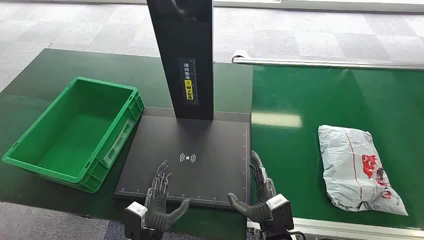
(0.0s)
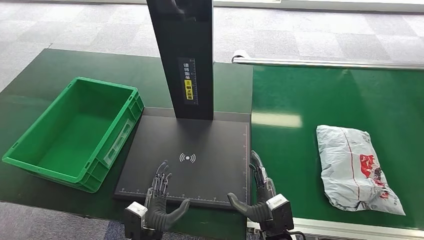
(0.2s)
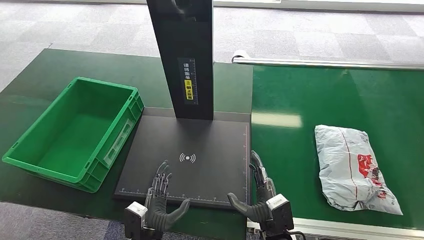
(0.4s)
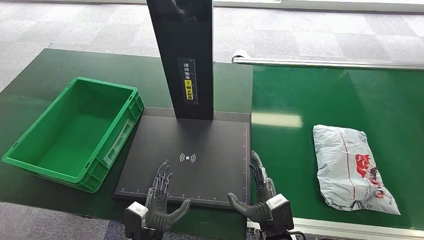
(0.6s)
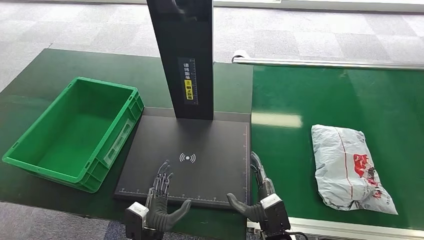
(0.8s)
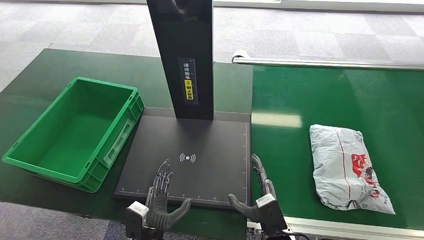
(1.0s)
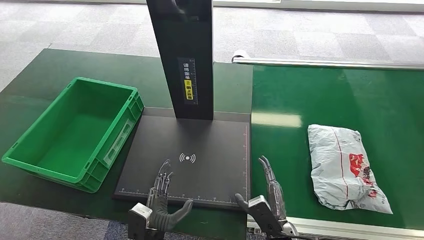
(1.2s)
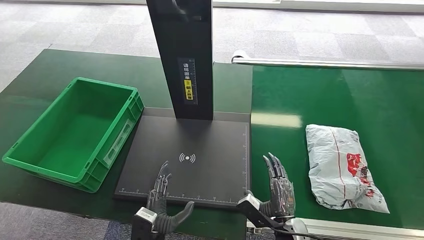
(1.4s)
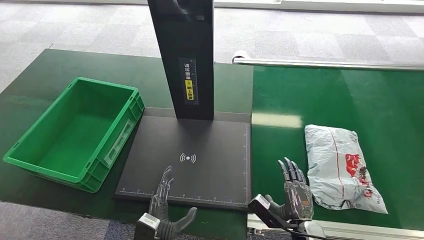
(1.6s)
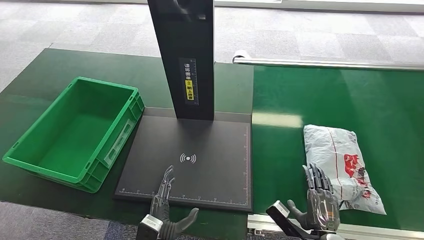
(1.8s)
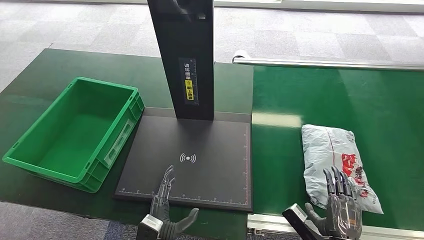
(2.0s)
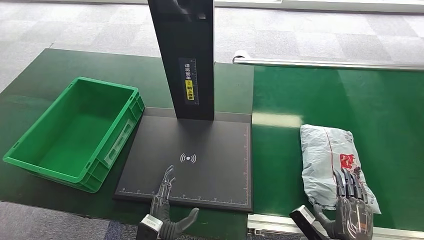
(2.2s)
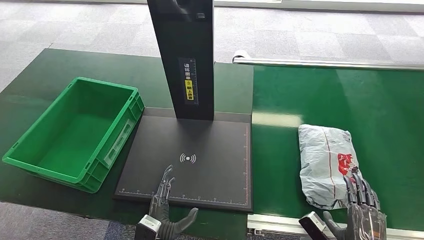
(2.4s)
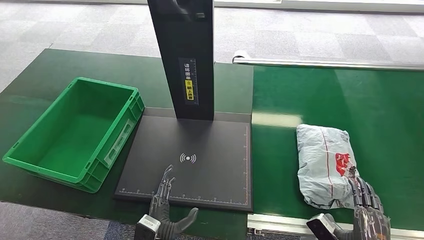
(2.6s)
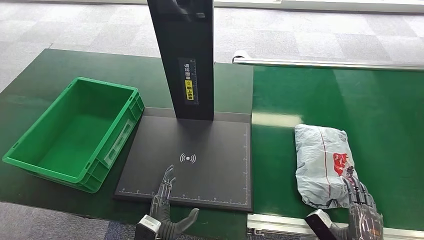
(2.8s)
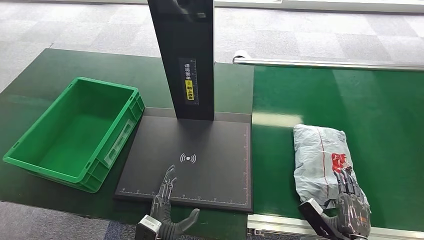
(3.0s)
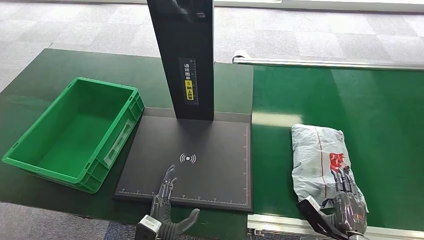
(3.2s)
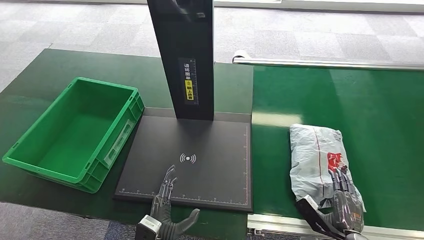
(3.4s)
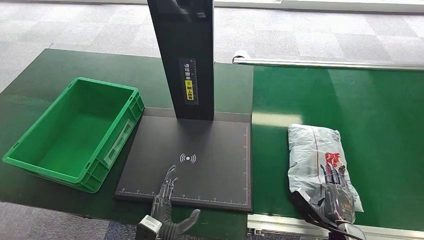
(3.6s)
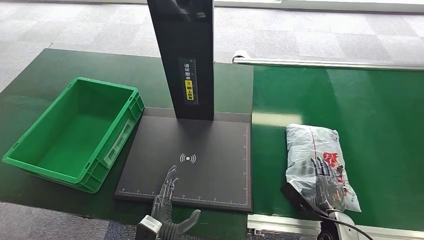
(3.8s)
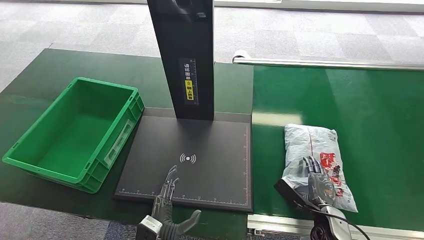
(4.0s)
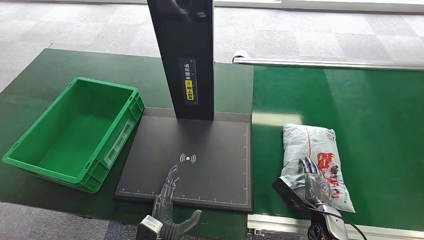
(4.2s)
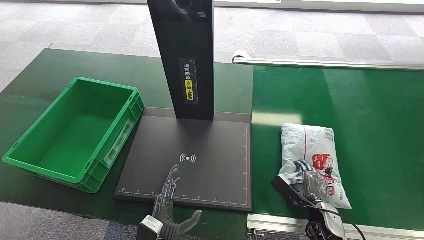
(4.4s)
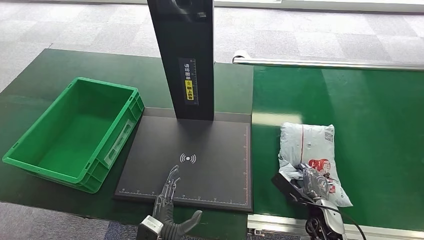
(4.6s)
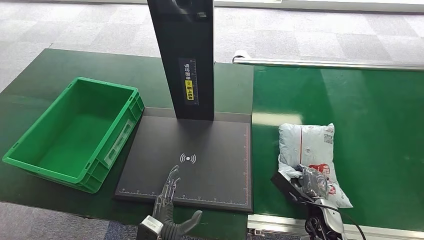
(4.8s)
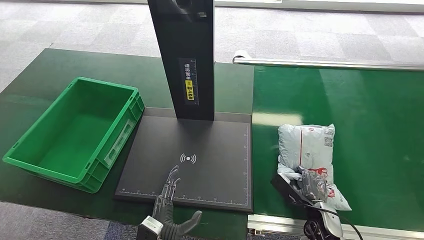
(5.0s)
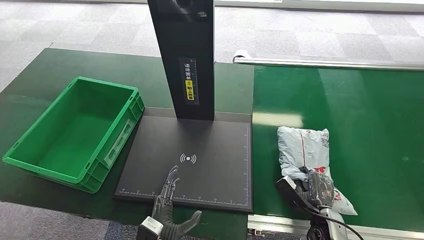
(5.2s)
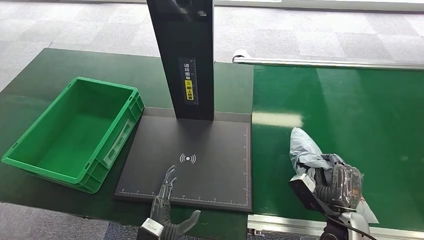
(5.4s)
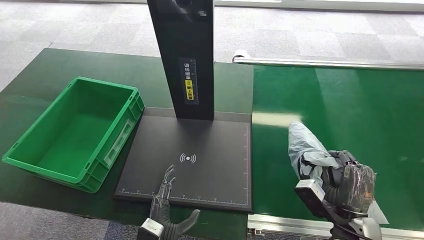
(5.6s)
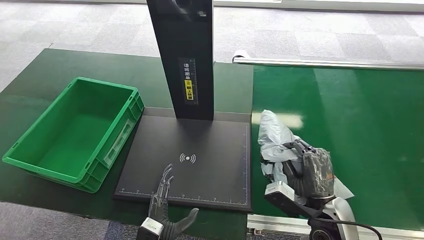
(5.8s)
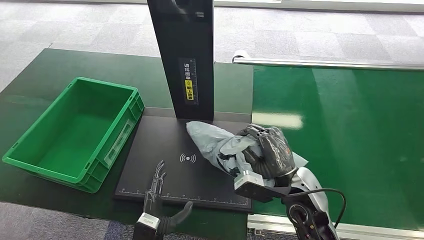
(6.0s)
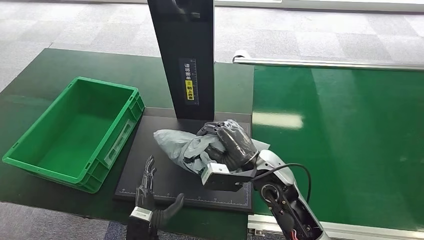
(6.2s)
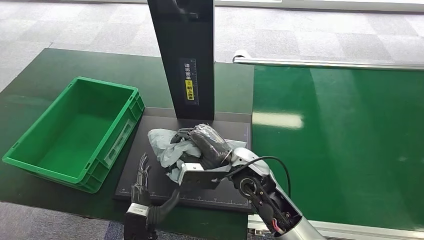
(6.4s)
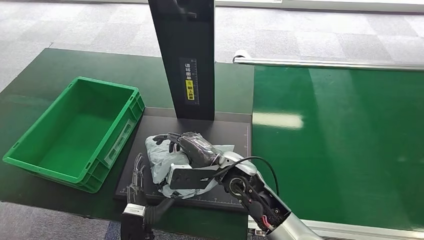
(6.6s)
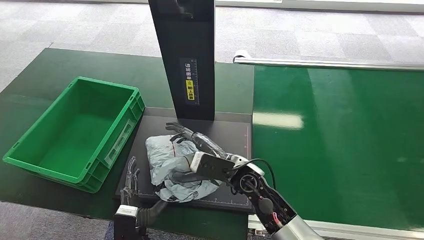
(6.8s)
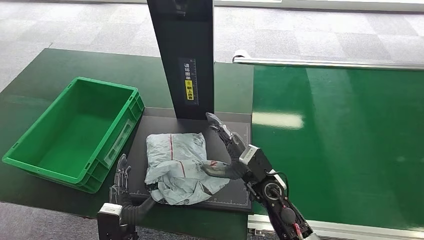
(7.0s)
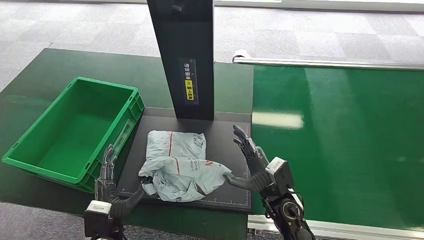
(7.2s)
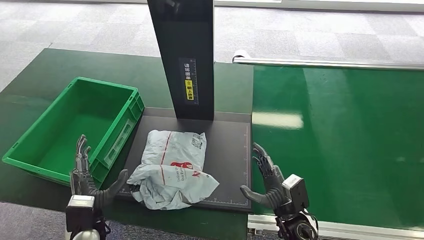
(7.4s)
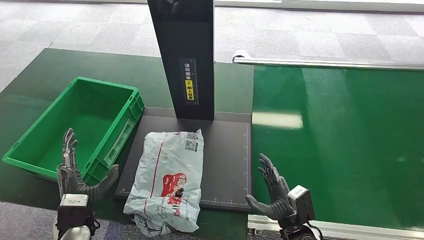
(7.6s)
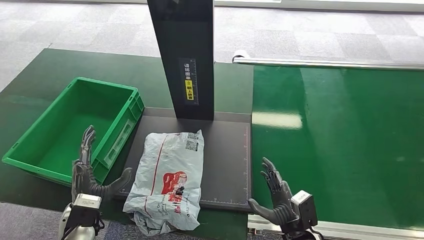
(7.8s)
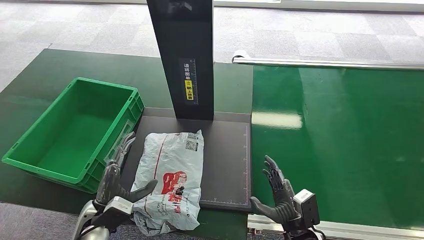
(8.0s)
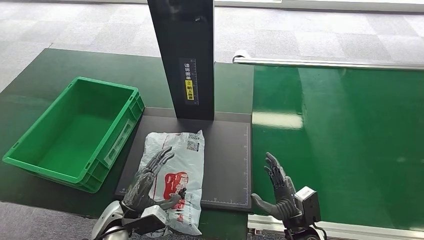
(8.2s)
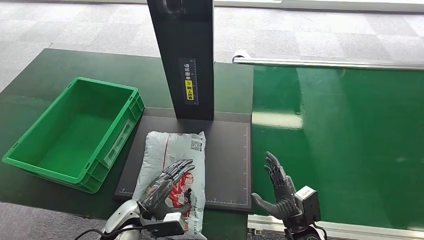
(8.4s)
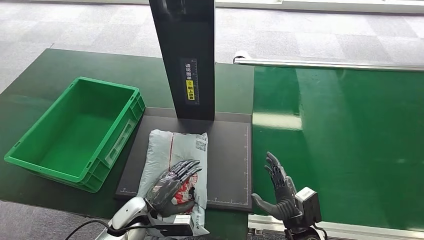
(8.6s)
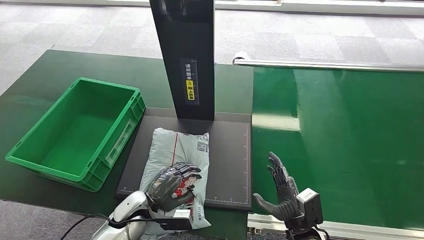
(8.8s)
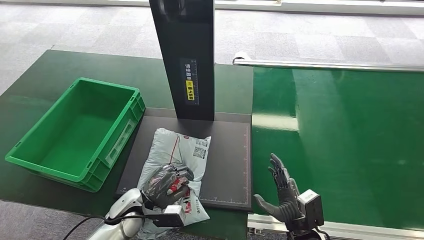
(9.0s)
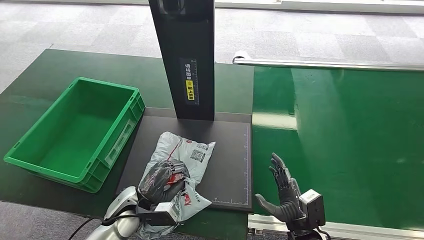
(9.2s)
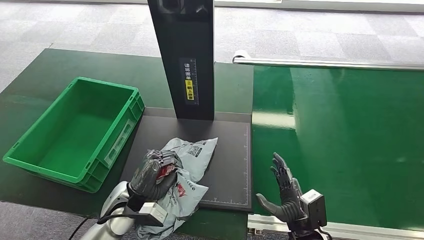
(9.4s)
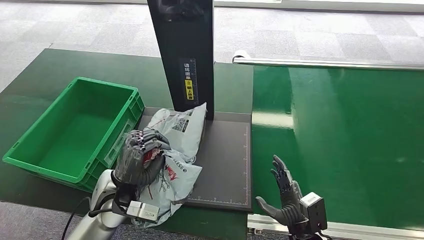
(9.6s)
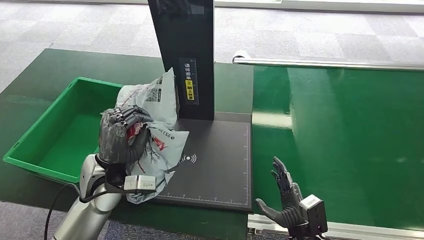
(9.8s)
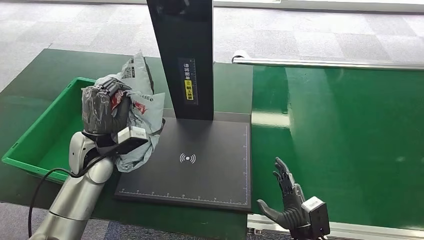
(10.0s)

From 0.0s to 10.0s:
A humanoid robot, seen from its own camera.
Step, from 0.0s to 6.2s: Pick up the package from the conveyor belt.
Step, from 6.4s to 8.4s: Place the package onto the inbound machine.
Step, from 8.6s to 10.0s: Pick up the package from the inbound machine.
From 1.4s to 2.8s: The right hand goes about 15 cm to the right and backward.
From 2.8s to 4.2s: The right hand shifts approximately 10 cm forward.
From 4.2s to 5.8s: The right hand travels upward and to the left by roughly 15 cm.
From 5.8s to 7.2s: The right hand shifts about 10 cm to the left and downward. The left hand is displaced to the left by some 10 cm.
From 7.2s to 8.6s: The right hand heads backward, to the right and downward, covering some 10 cm, while the left hand travels forward by roughly 5 cm, and moves roughly 5 cm to the left and comes back.

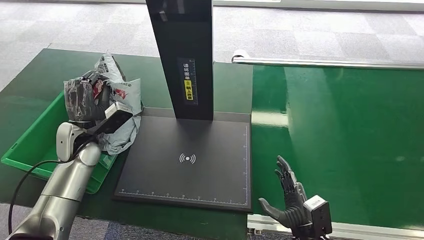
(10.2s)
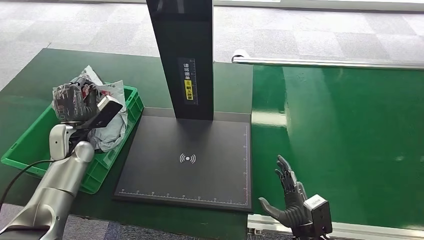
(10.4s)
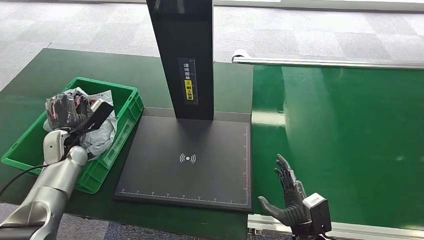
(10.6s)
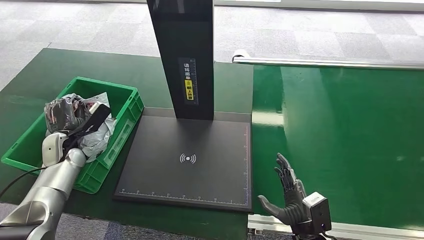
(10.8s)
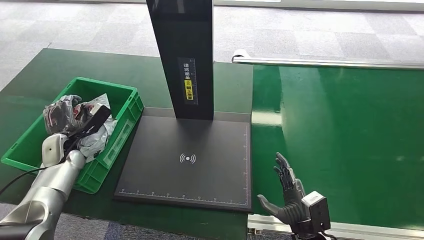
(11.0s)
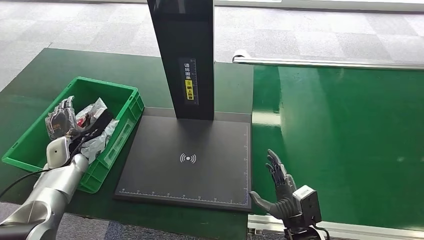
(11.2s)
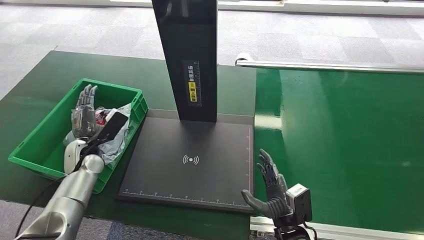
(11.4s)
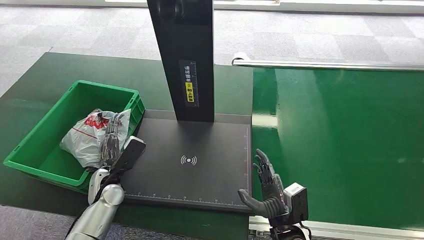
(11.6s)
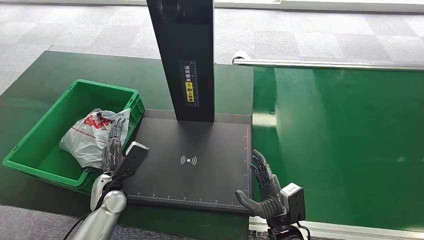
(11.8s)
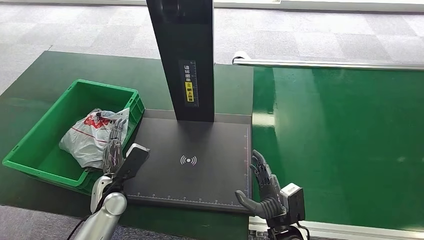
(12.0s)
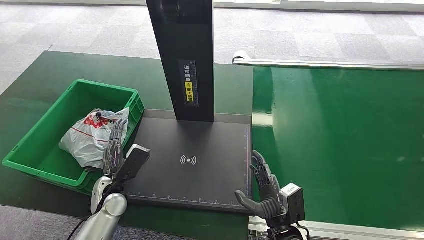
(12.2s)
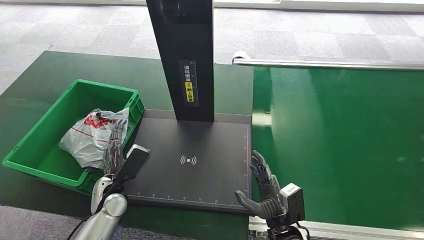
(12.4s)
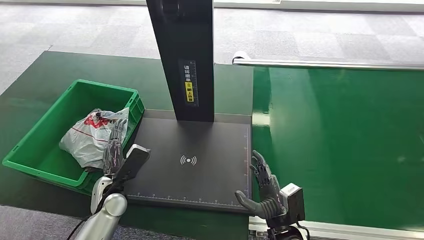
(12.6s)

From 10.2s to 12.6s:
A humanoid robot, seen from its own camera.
Step, from 10.2s to 12.4s: Place the package into the parcel locker.

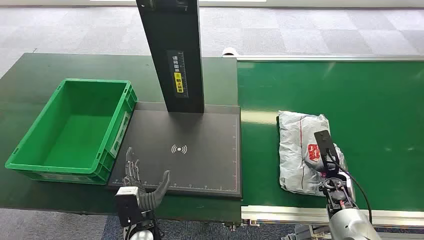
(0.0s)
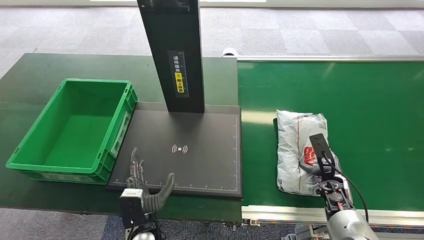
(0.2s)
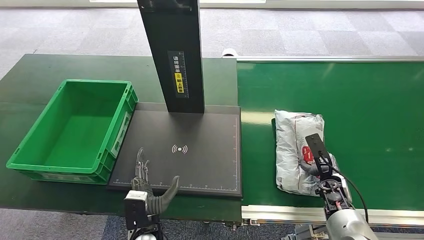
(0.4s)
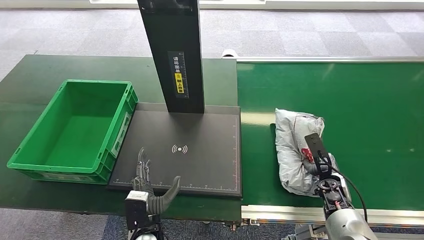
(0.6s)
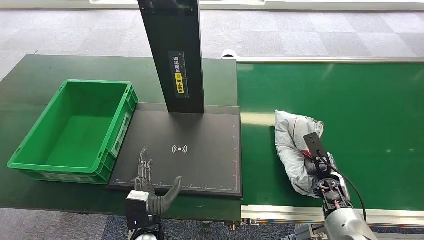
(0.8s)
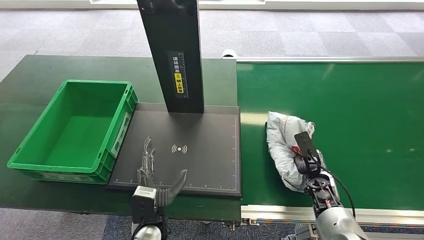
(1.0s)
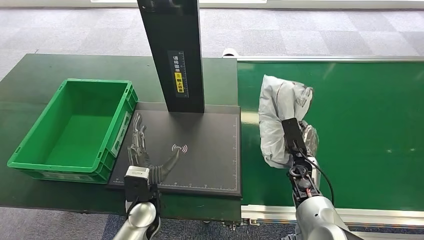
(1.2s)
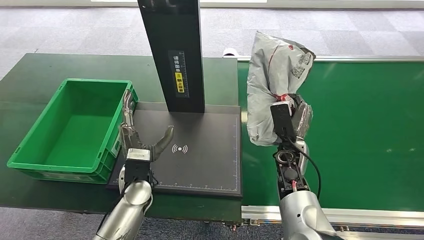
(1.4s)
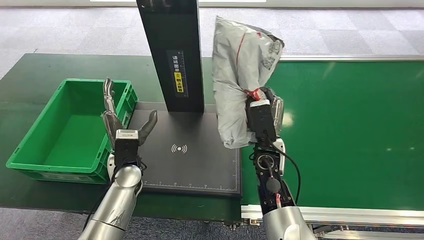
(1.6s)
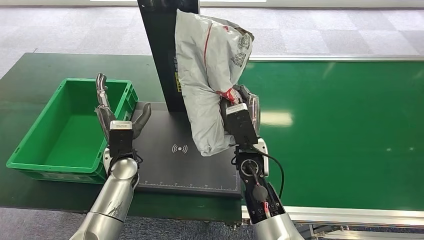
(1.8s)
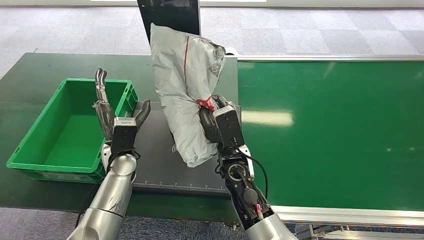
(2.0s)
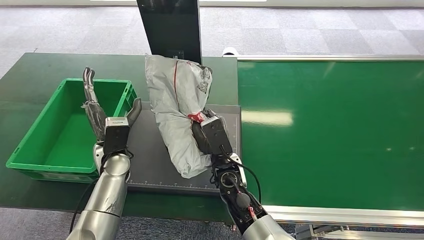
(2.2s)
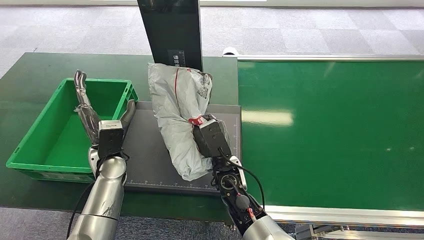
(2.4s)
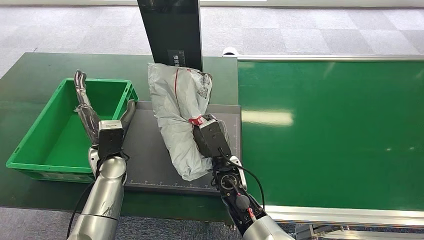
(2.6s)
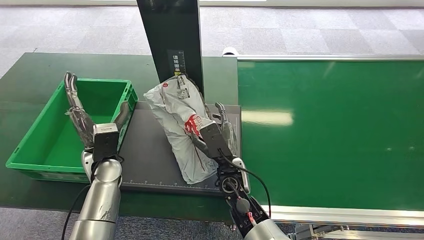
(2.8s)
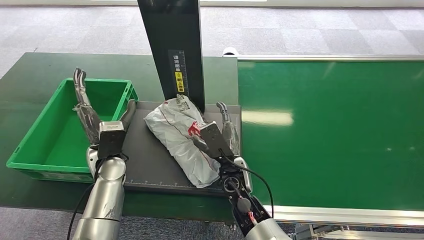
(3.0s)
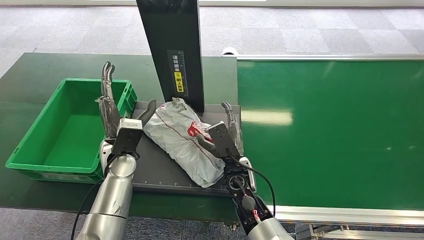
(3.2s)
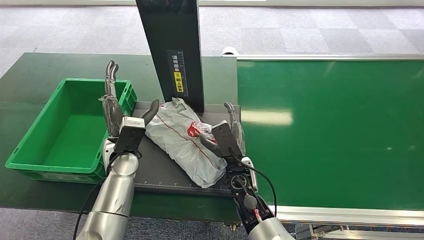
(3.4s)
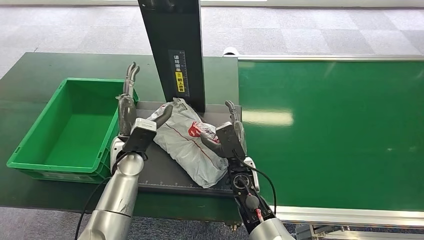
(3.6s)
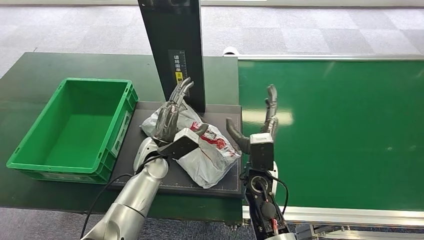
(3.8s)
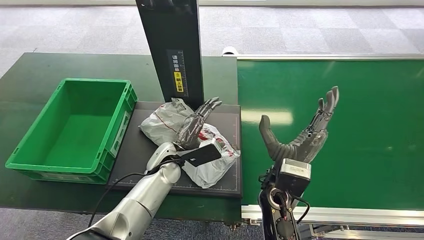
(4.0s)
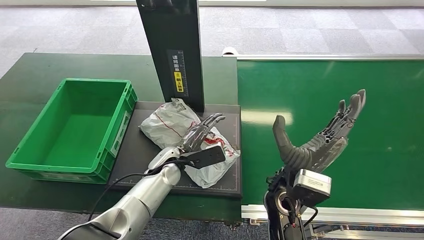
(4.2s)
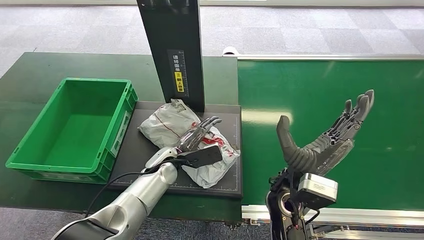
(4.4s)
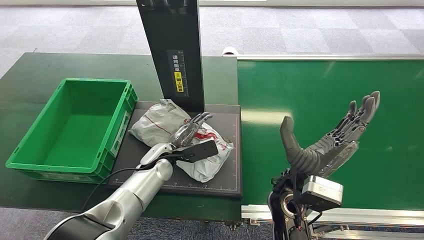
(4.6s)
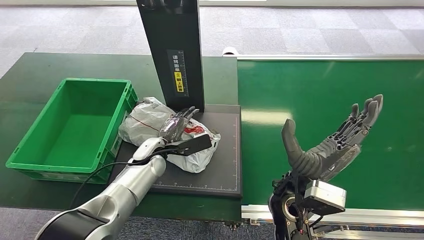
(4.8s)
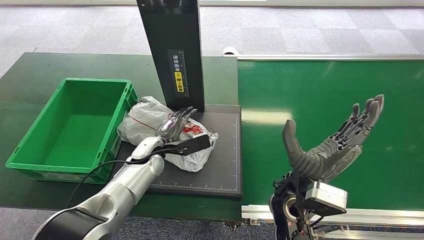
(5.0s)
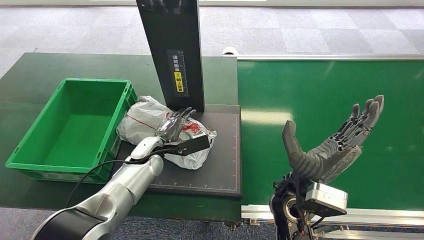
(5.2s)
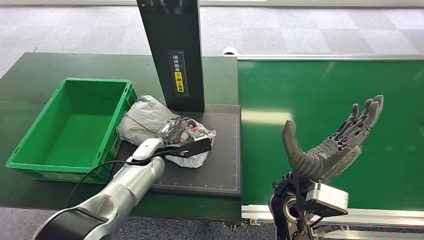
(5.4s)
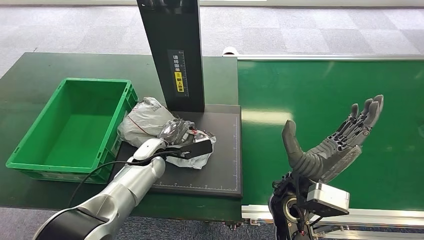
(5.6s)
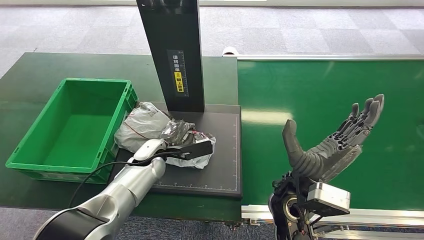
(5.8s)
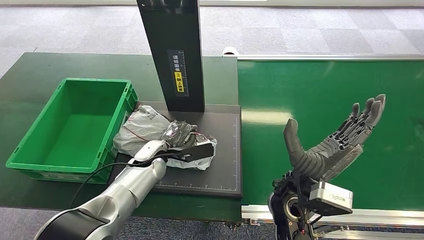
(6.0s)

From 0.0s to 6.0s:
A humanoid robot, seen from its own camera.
Step, from 0.0s to 2.0s: Pick up the package from the conveyor belt.
Step, from 2.2s to 4.2s: Place the package onto the inbound machine.
From 3.0s to 4.4s: The right hand shifts approximately 15 cm to the right and upward. Meanwhile the left hand is displaced to the right and downward by about 10 cm.
